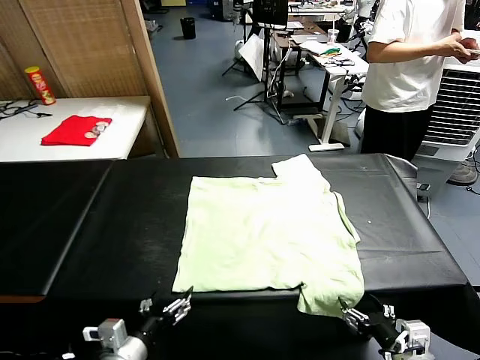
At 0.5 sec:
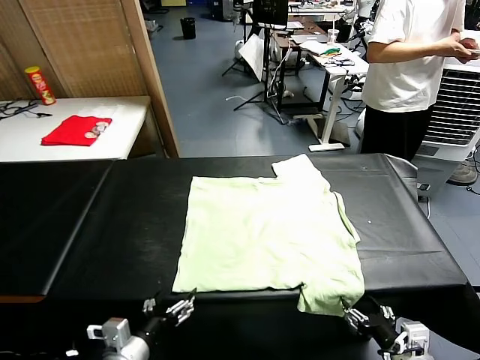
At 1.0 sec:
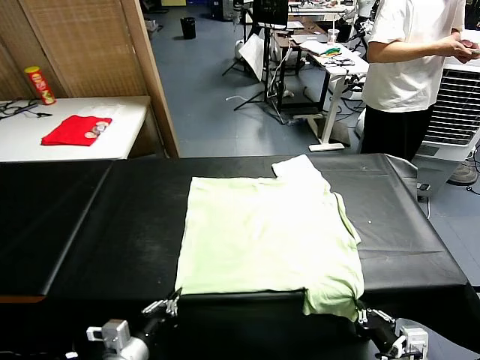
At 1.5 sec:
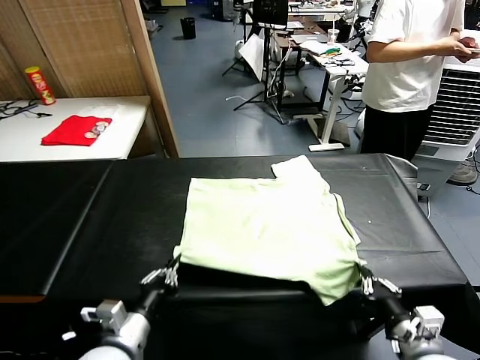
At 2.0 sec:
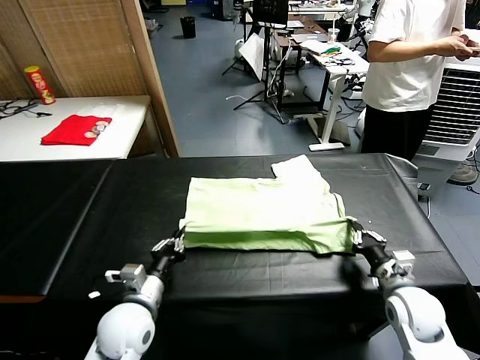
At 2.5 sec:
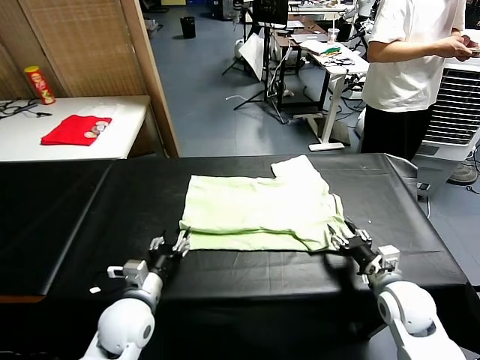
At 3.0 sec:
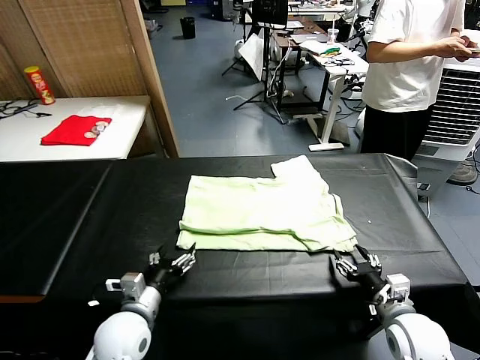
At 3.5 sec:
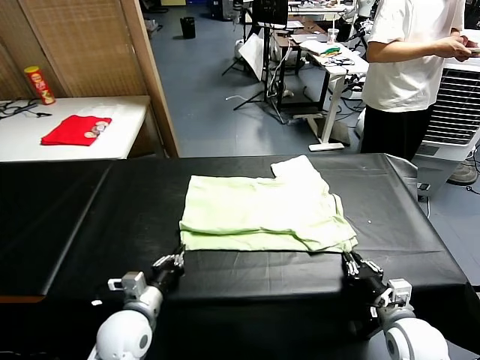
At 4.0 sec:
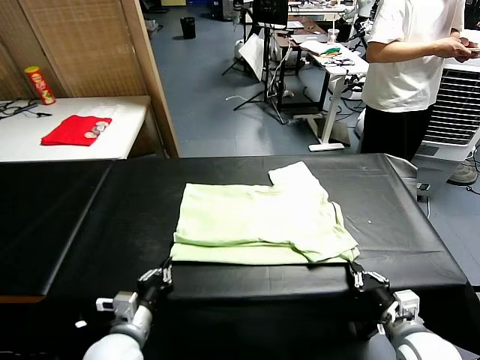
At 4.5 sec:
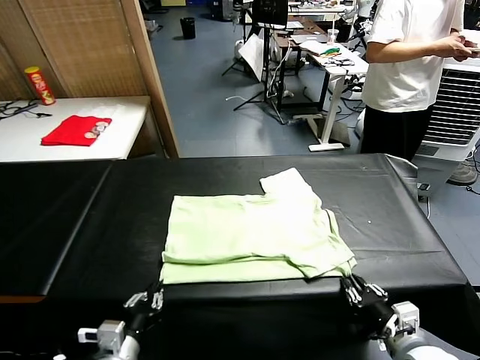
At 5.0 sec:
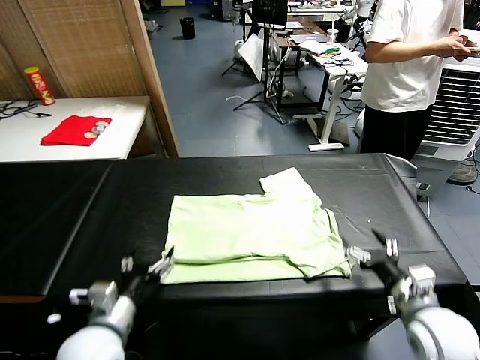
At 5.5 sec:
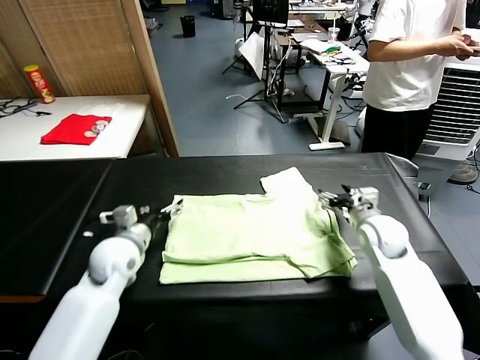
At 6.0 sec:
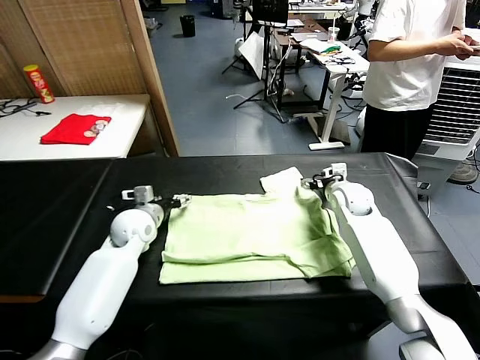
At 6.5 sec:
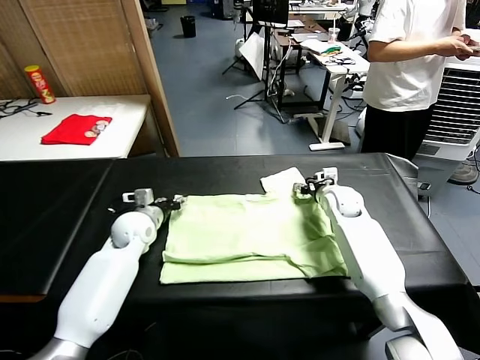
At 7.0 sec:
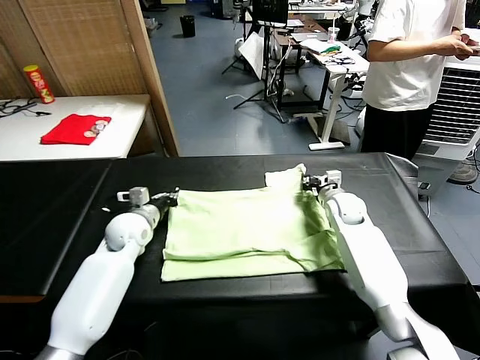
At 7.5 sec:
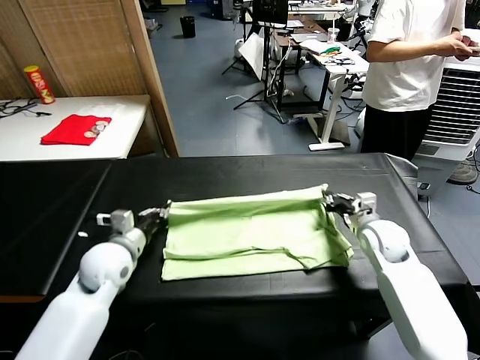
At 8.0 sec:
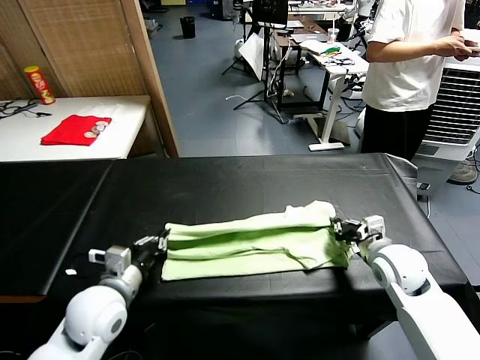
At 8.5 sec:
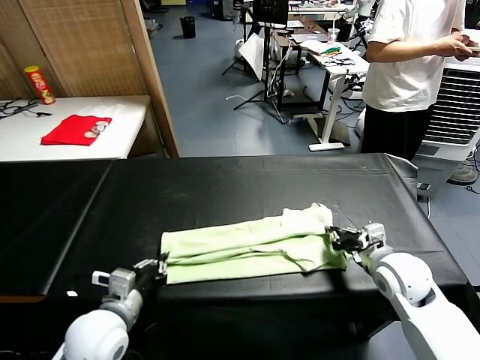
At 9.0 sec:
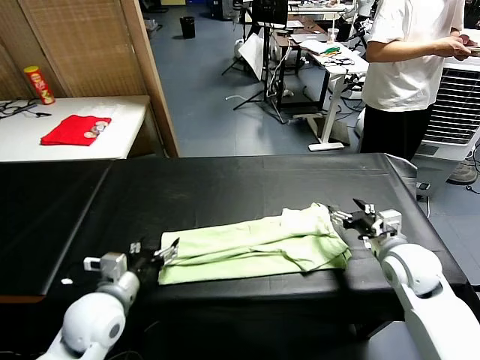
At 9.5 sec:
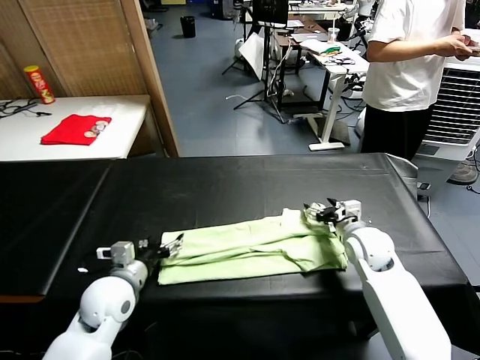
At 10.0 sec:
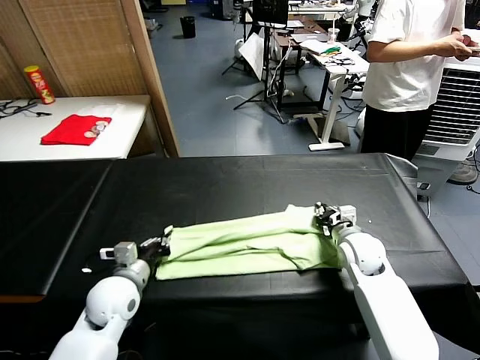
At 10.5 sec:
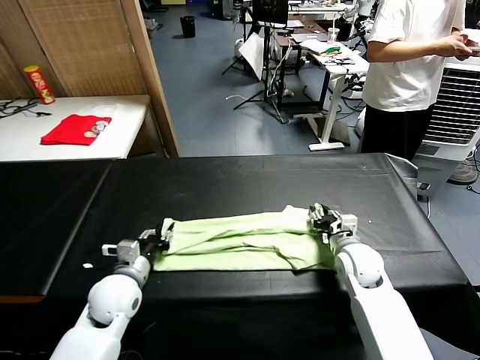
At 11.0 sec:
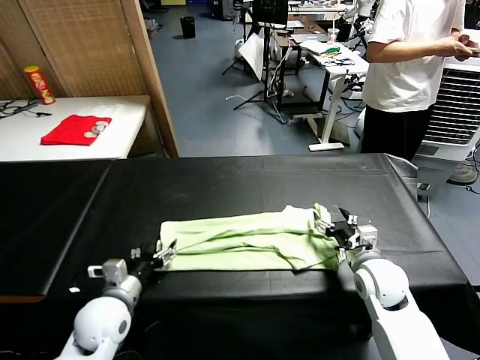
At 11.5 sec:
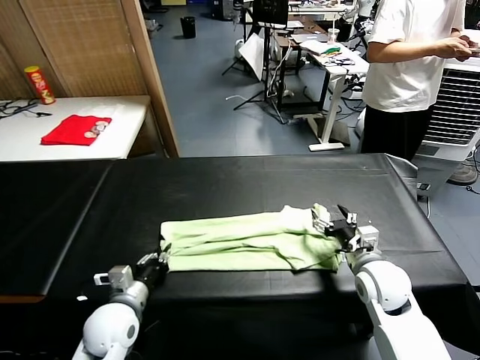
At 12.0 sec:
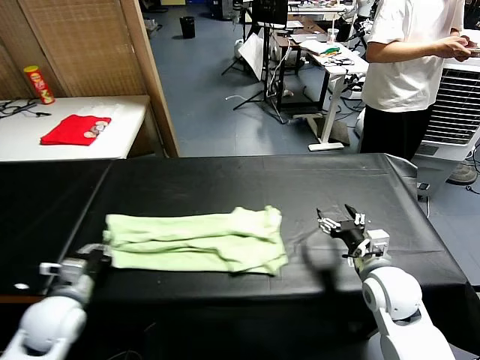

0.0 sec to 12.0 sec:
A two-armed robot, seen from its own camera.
Task of the whole recording: fold and organize the clothes.
Step, 0.0 sec to 0.5 sec: use both grippers simultaneously to clamp the lower edge of the clothing fabric.
Step, 1.0 sec to 2.5 sec: use both grippers to drag the lower edge of the fabric forward and fold it over the upper edge.
Step, 3.0 sec to 4.5 sec: Drag the clothes downward with both gripper.
Step, 5.0 sec to 6.5 sec: use both grippers simultaneously to clamp the upper edge of the clothing fabric.
Step, 7.0 sec to 8.5 sec: use both grippers to drag the upper edge of the fabric backward and fold it over the lower edge.
Step, 9.0 sec to 11.0 sec: use the left gripper to clamp the left edge of the fabric.
2.0 sec to 4.0 sec: Both grippers move backward, some 10 cm. The right gripper opens and closes again. The left gripper opens, then closes again.
4.0 sec to 6.0 sec: The two grippers go approximately 35 cm forward. The left gripper opens its fingers. The right gripper opens its fingers.
6.0 sec to 8.0 sec: The grippers both shift backward by roughly 20 cm. The left gripper closes up. Meanwhile the right gripper closes.
8.0 sec to 10.0 sec: The right gripper heads forward, downward and to the left, covering about 10 cm, and opens and closes again; the left gripper is displaced forward and downward by roughly 10 cm, and opens, then closes again.
10.0 sec to 12.0 sec: The right gripper travels backward and upward by approximately 10 cm, and opens its fingers, while the left gripper shifts about 10 cm to the left and backward, and opens, then closes again.

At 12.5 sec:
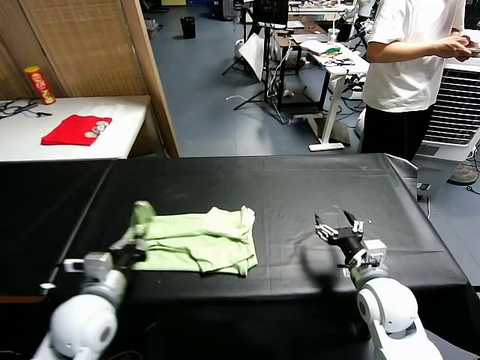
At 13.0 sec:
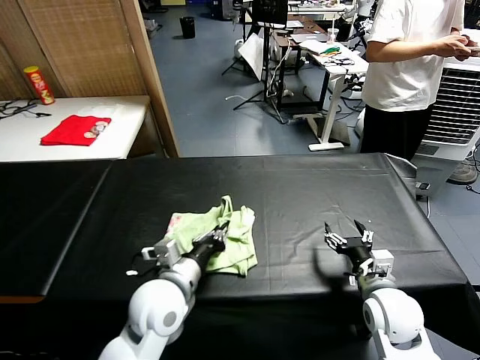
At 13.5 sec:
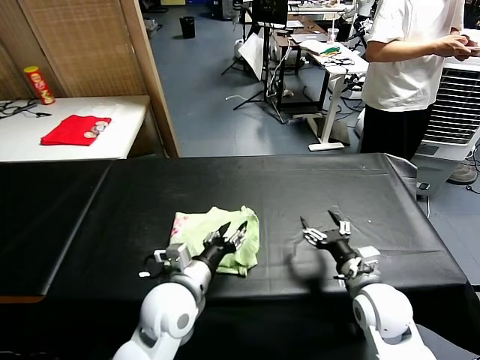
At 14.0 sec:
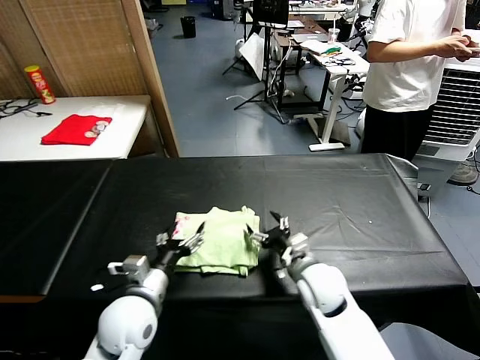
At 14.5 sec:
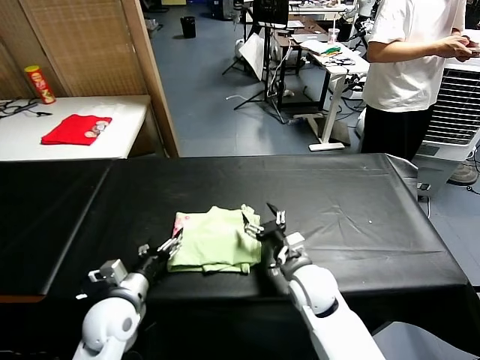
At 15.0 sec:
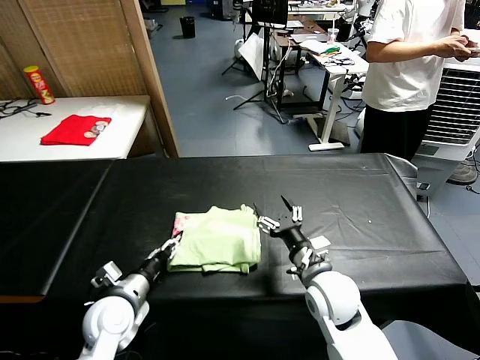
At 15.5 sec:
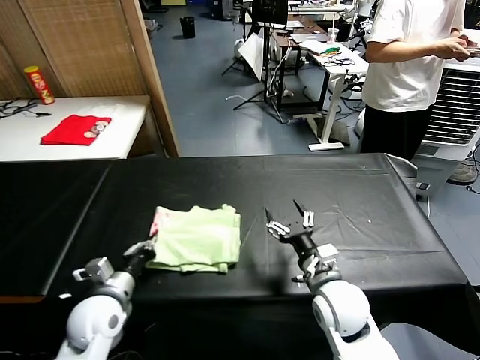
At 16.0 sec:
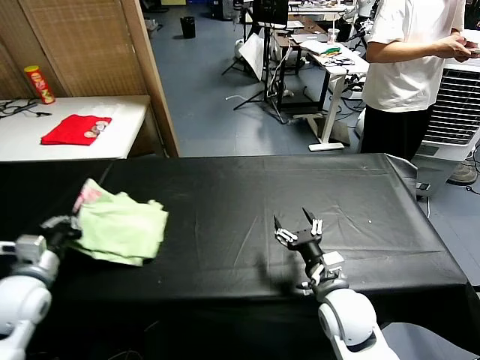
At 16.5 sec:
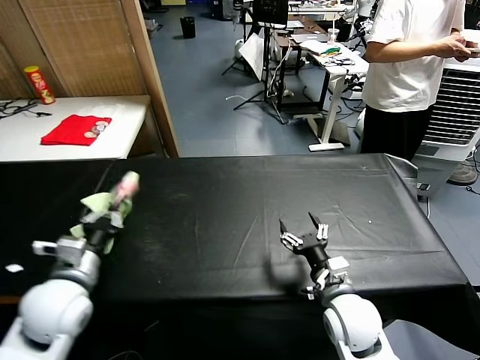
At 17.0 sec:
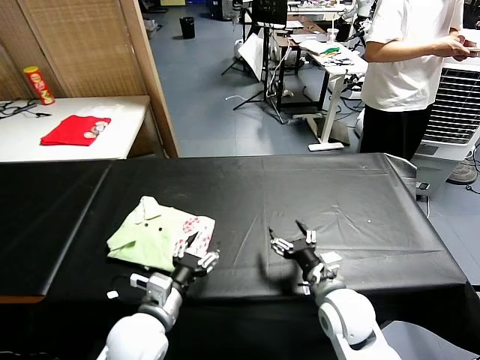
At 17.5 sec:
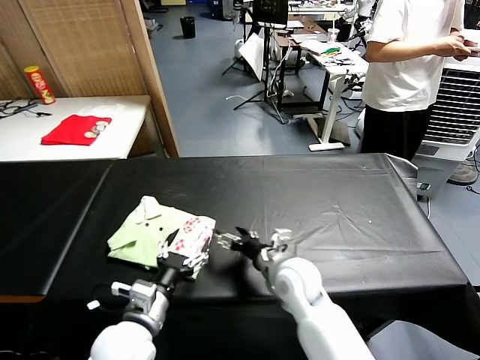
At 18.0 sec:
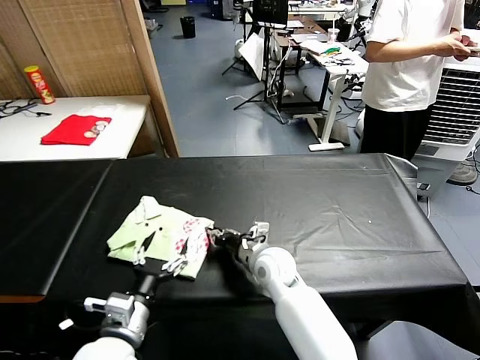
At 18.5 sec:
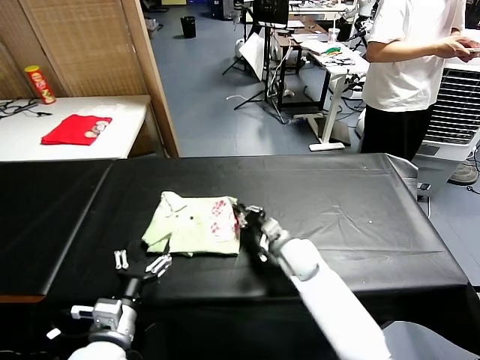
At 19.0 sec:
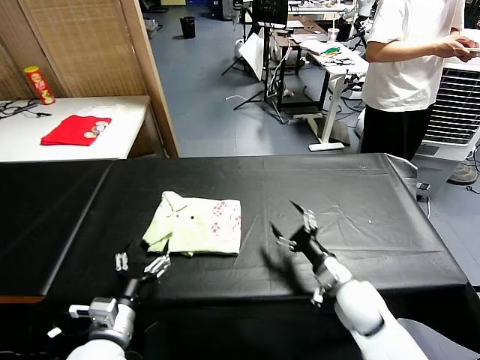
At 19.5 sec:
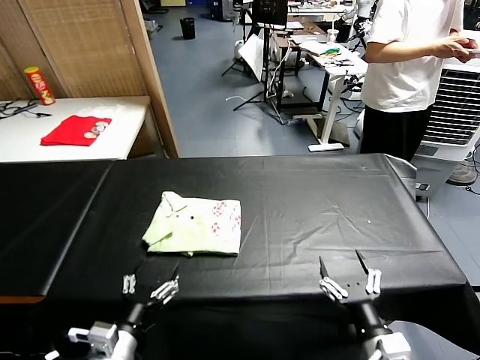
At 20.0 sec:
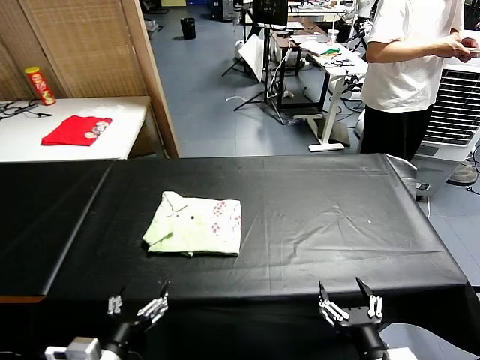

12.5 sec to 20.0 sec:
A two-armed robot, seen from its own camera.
Task of the whole recording: fold and organize the clothes.
Step, 12.5 sec to 13.5 sec: use the left gripper to drag the left edge of the fabric to the left and folds it over the right edge.
Step, 14.0 sec to 16.5 sec: Flip the folded clothes over with left gripper.
Step, 17.5 sec to 18.5 sec: Drag the clothes to the center of the table.
12.5 sec to 14.5 sec: The left gripper moves downward, roughly 5 cm, moves some 10 cm to the right and comes back, and opens up. The right gripper travels to the left by approximately 15 cm.
14.5 sec to 16.5 sec: The right gripper is displaced backward and to the right by approximately 10 cm; the left gripper is displaced upward by some 10 cm, and closes up.
16.5 sec to 18.0 sec: The left gripper travels to the right, backward and downward by approximately 15 cm, and opens its fingers. The right gripper moves to the left and forward, roughly 20 cm, and closes its fingers.
18.0 sec to 20.0 sec: The left gripper travels backward by some 10 cm; the right gripper is displaced backward and to the right by approximately 35 cm, and opens its fingers.
